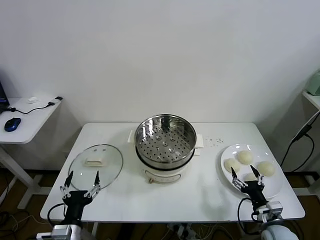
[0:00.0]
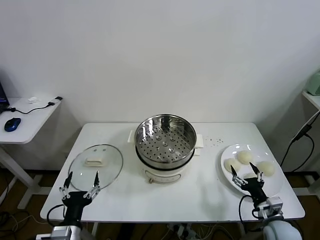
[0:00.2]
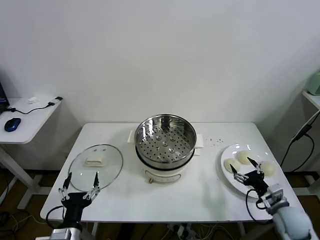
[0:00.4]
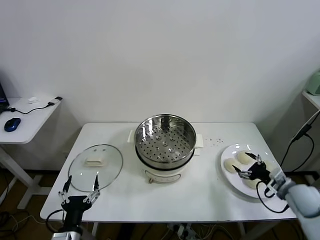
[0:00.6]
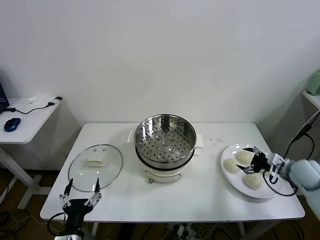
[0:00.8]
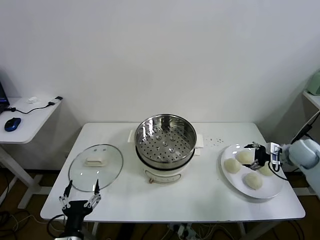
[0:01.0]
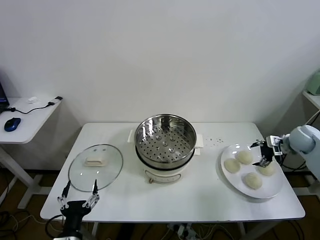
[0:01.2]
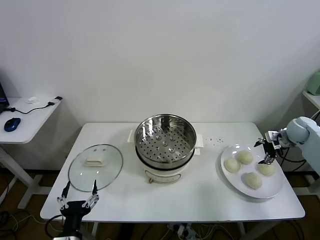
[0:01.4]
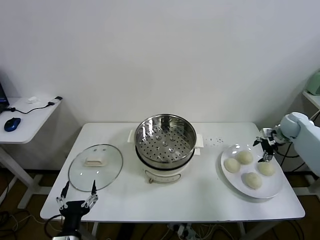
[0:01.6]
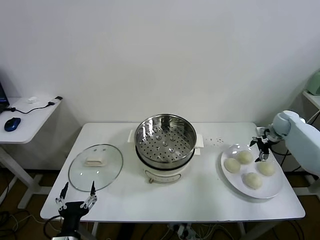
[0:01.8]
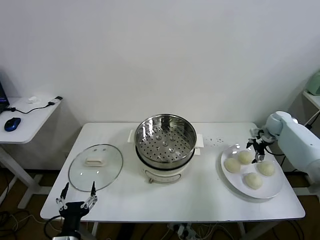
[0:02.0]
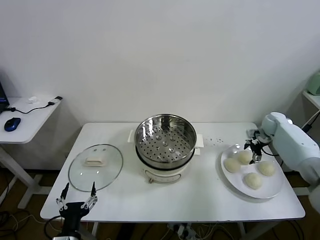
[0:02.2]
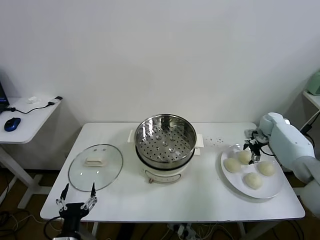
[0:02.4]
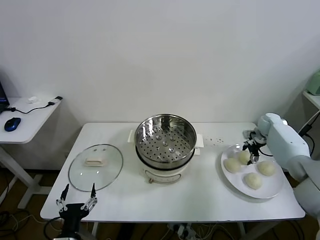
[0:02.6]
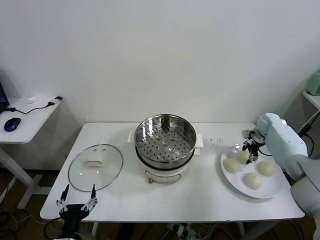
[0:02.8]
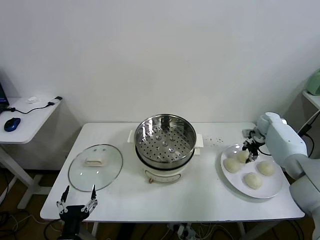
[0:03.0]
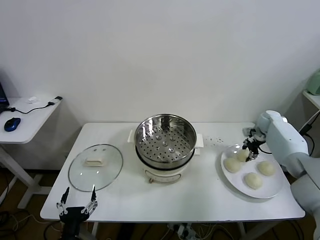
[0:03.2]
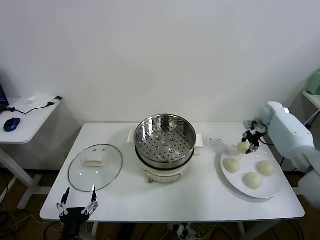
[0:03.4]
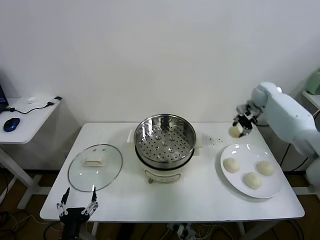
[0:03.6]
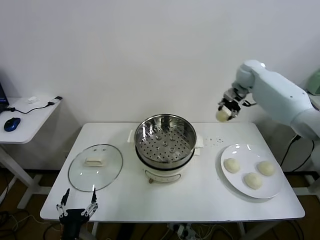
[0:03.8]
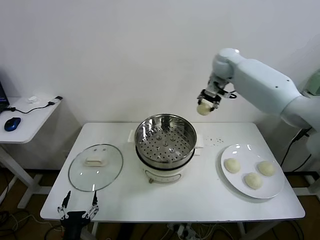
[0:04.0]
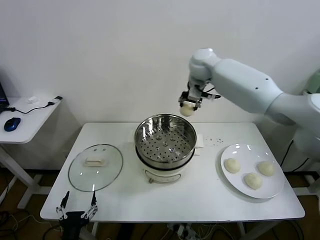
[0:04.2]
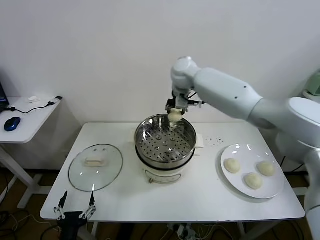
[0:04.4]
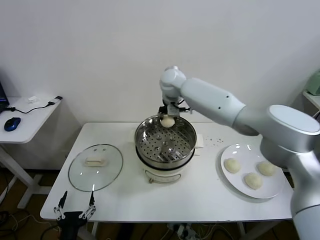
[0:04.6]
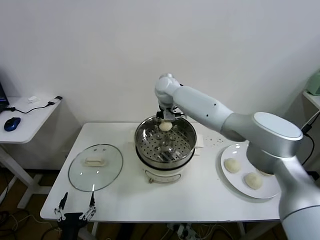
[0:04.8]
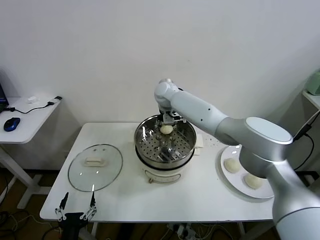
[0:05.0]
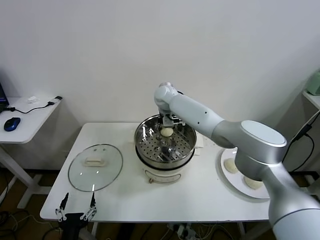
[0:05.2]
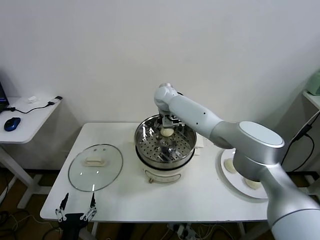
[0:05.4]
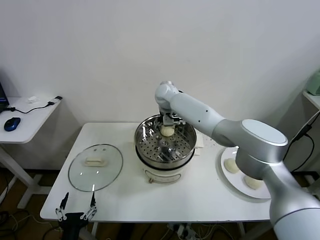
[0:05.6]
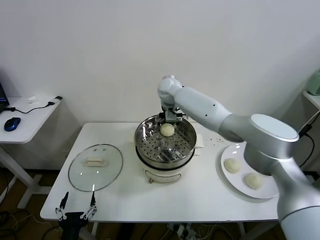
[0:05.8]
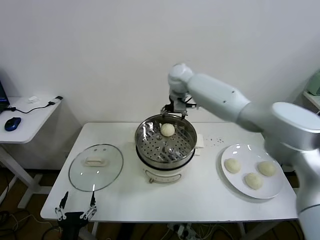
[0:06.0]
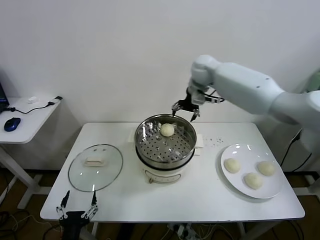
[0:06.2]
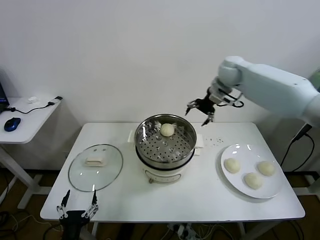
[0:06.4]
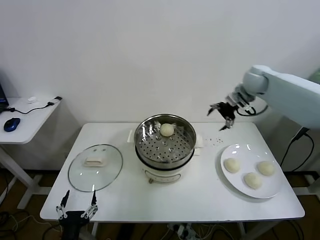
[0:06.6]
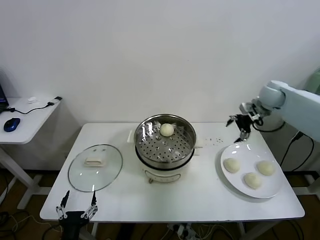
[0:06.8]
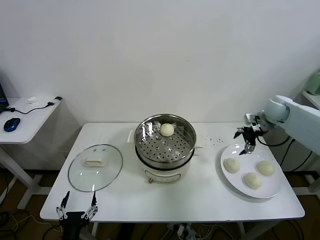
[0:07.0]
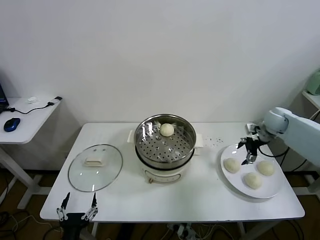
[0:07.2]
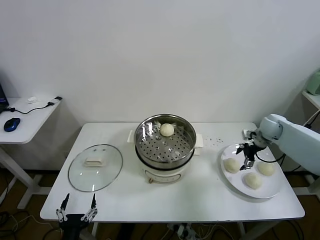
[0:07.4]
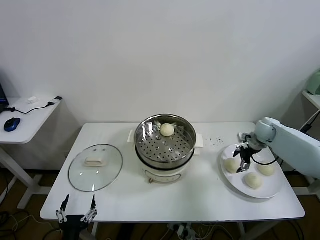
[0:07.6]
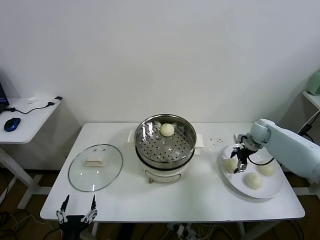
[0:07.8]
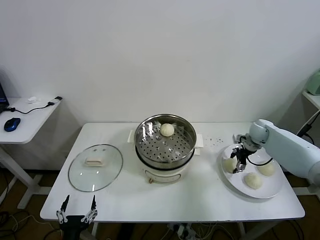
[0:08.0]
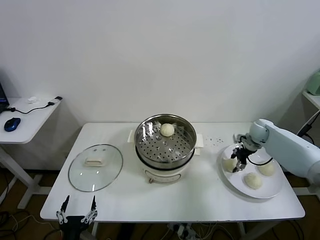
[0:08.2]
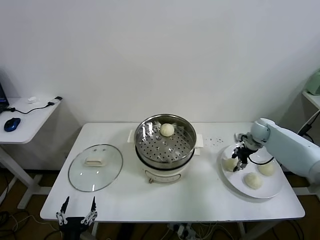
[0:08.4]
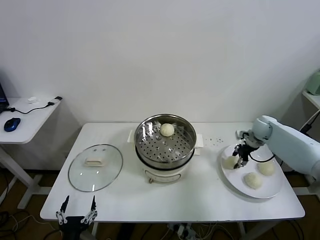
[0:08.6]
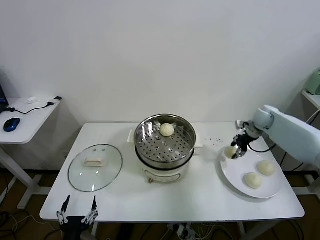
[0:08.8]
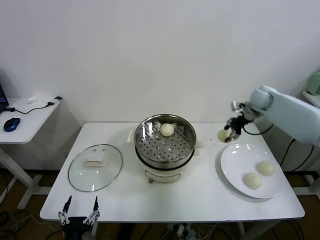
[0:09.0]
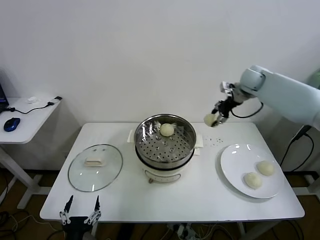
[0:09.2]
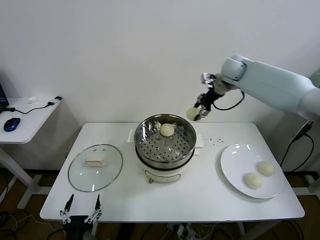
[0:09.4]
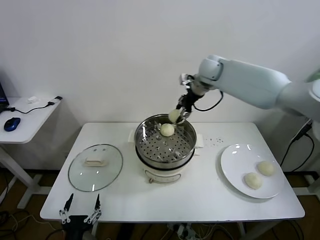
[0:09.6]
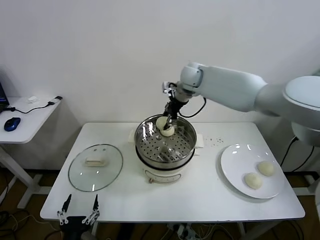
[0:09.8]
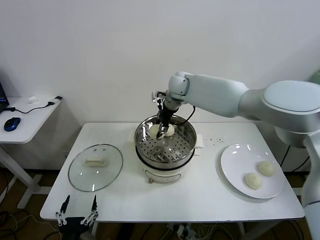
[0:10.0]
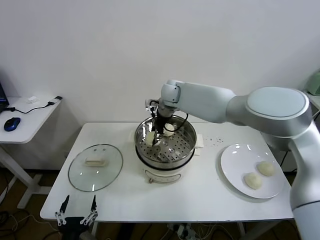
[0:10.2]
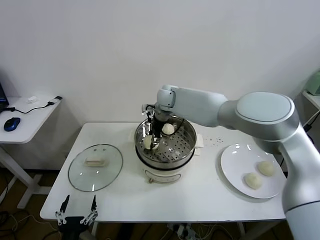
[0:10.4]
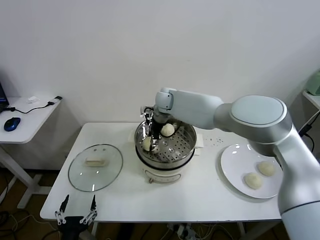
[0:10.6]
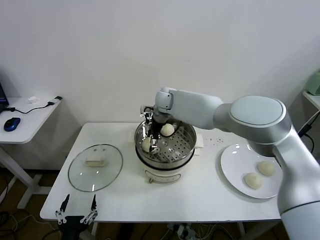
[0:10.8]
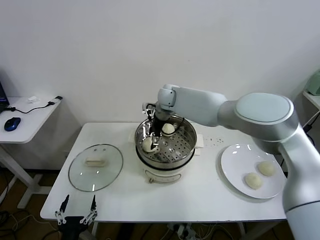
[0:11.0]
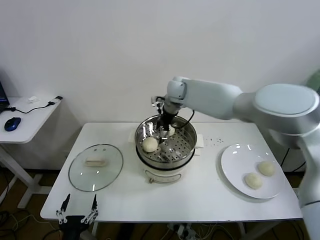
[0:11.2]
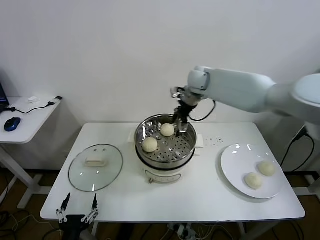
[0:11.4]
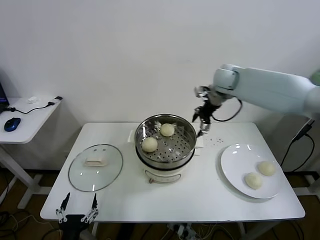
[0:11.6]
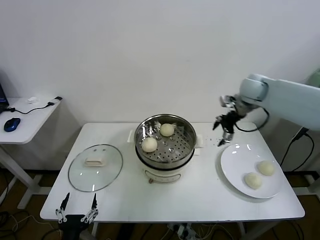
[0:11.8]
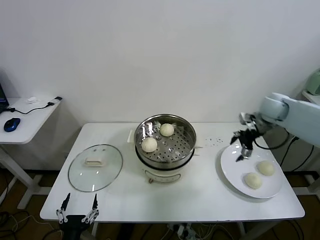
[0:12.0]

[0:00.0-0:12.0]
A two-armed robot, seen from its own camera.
Task of the whole recording: take steamed baozi put them in steamer.
Step, 0.0 to 2.6 s: Grasp the baozi in the plate with right gripper.
Step, 2.8 to 5.6 s: Place the baozi on the steamer with right gripper.
Step, 5.8 to 8.2 s: Grasp the baozi in the plate with right gripper.
Step, 8.4 to 10.8 s: Place the baozi on the steamer with right gripper.
1.6 to 3.0 s: The right gripper ends up about 10 cm from where it was, and closes its fingers.
3.0 to 4.4 s: The right gripper heads to the left and upward, covering about 50 cm.
4.4 to 6.0 s: The right gripper moves some 10 cm downward and comes back, and opens.
6.0 to 7.6 s: The right gripper heads to the right and downward, covering roughly 40 cm.
7.6 to 9.0 s: The right gripper moves upward, roughly 15 cm, and closes up.
9.0 to 10.4 s: The right gripper goes approximately 35 cm to the left.
10.4 to 12.0 s: The right gripper goes some 40 cm to the right, and opens its fingers.

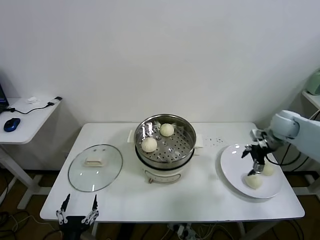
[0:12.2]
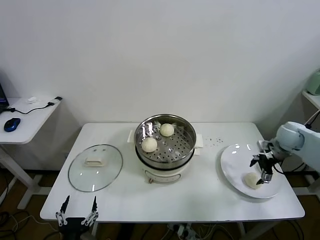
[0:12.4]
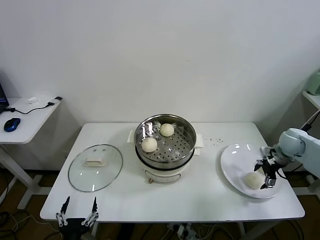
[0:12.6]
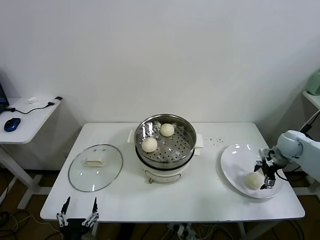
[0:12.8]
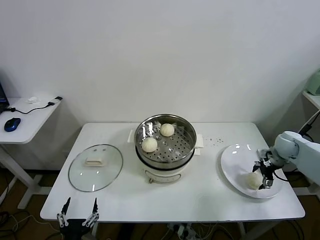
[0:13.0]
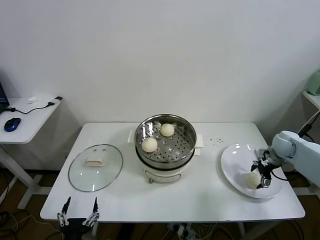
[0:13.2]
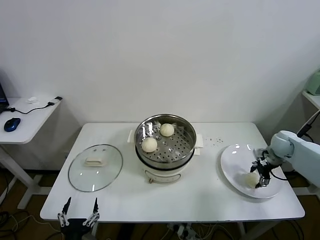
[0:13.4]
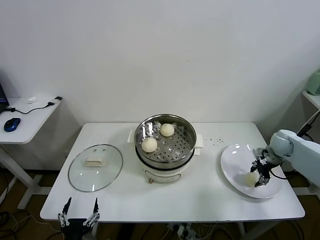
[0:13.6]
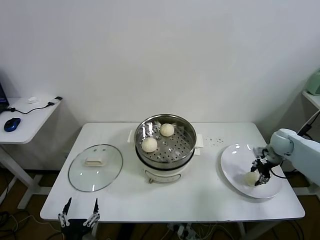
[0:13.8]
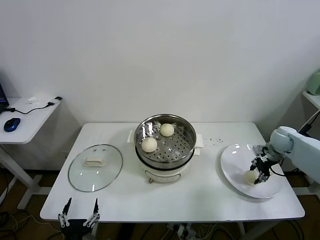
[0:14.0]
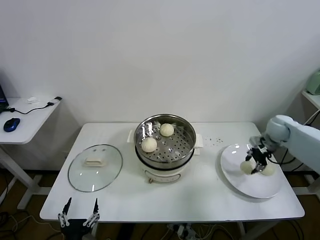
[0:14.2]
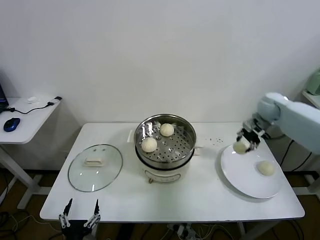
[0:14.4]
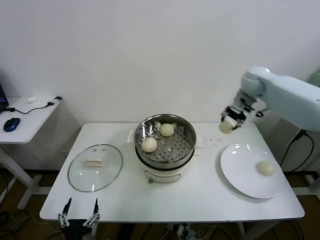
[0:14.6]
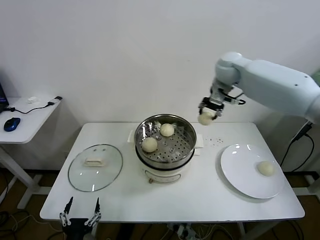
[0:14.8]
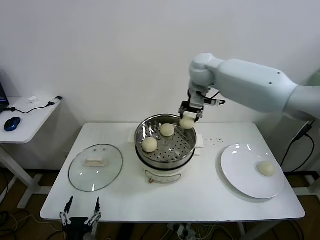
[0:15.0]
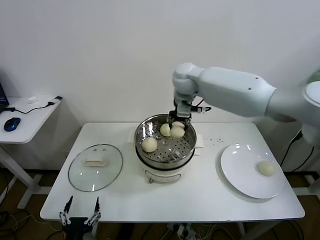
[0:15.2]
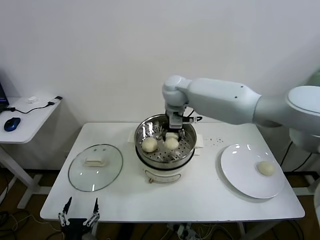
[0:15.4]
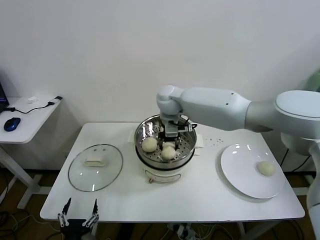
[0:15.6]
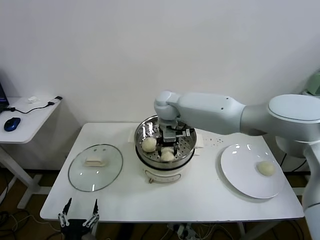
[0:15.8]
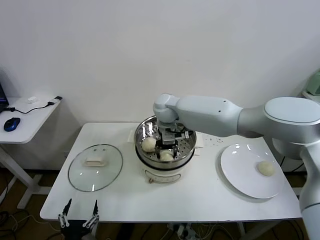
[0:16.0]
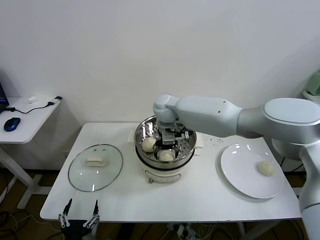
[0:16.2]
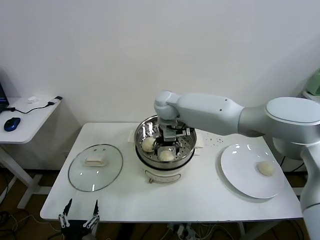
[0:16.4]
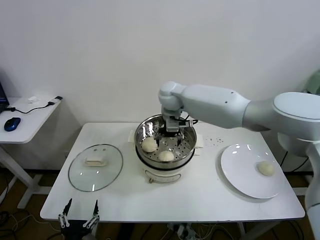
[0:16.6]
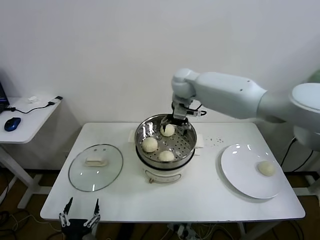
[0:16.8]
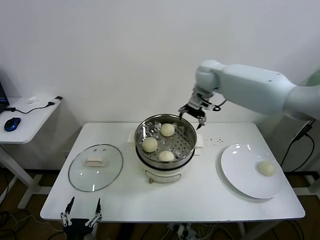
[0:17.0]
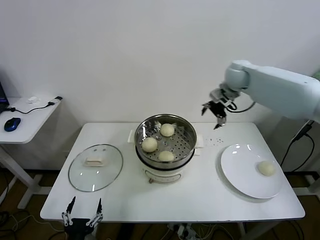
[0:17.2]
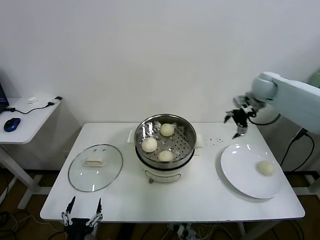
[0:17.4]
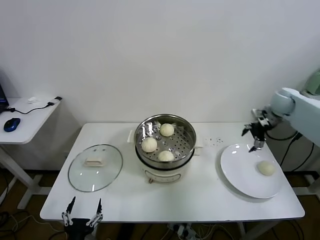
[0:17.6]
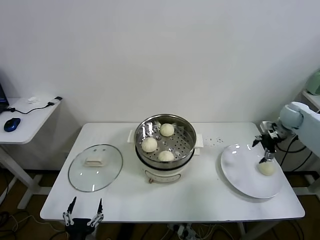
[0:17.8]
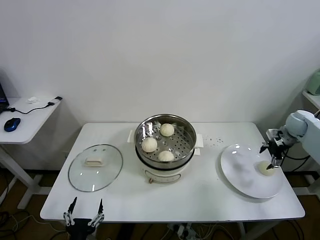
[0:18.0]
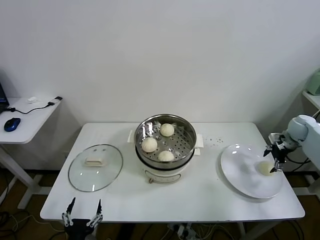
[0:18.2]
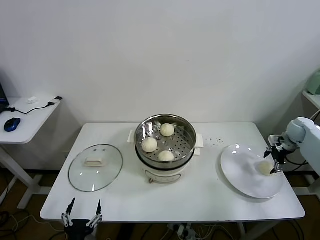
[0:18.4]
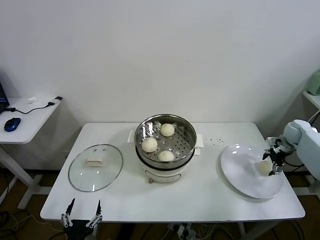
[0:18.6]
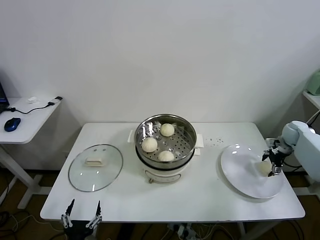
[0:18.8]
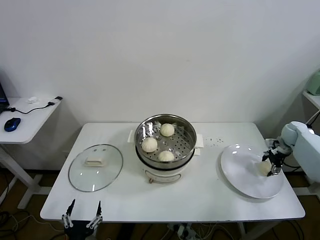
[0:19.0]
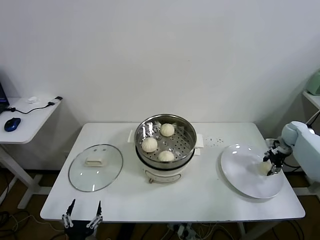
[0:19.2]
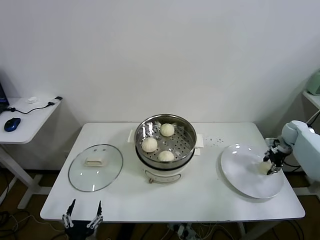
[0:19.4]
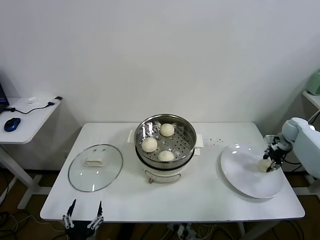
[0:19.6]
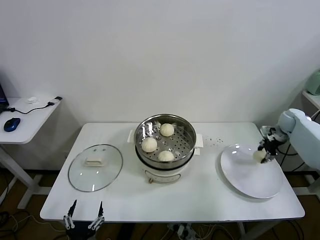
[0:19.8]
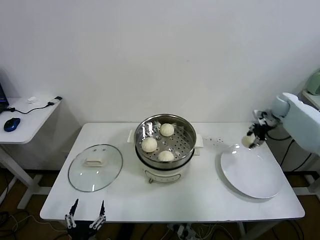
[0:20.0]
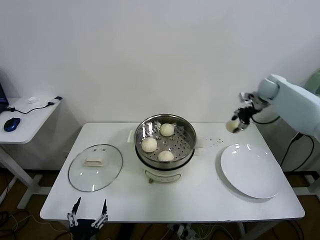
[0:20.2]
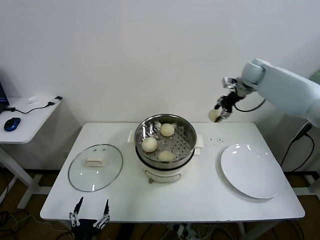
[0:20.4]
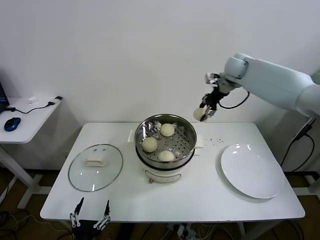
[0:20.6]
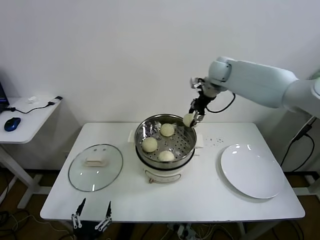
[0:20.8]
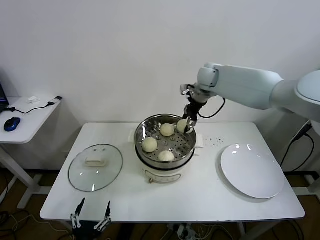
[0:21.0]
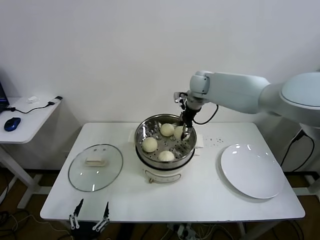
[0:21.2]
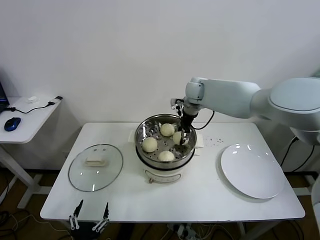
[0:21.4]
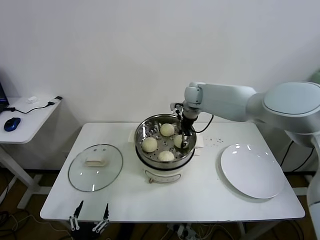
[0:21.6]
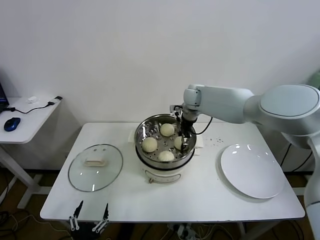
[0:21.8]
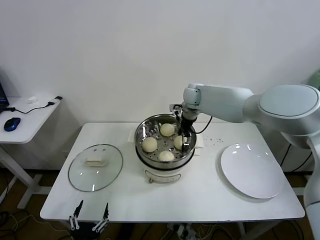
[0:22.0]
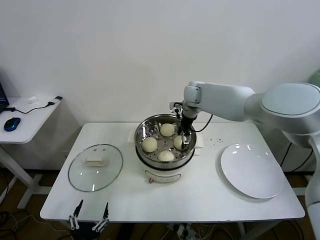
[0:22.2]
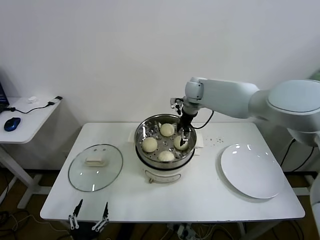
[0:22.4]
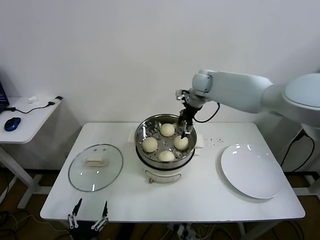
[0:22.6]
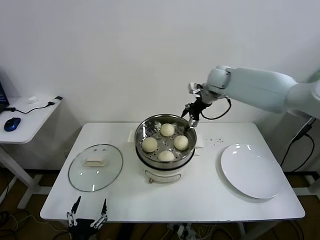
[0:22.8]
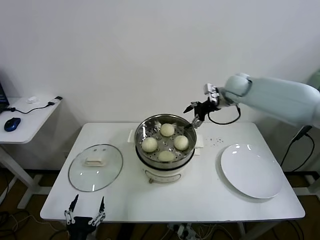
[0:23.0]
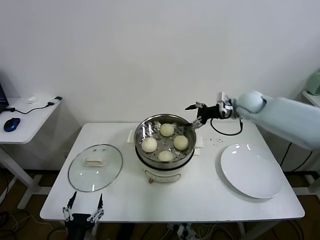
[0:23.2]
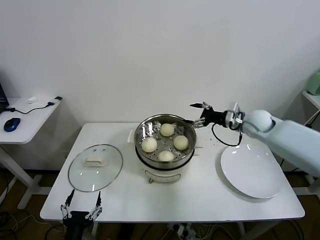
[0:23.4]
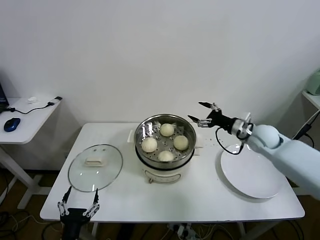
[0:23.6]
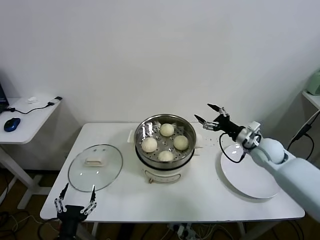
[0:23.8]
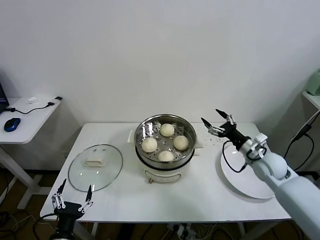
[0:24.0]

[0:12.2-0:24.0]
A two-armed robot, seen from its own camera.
Task of the whole recording: take steamed baozi put them in steamer.
Step, 12.2 to 13.8 s: Grasp the baozi in the plate with right gripper.
Step, 14.0 to 16.2 s: Place the baozi on the steamer with right gripper.
Step, 16.4 to 19.4 s: Grasp the baozi in the plate with right gripper.
Step, 19.6 to 22.2 s: Place the baozi on the steamer with right gripper.
12.2 to 13.6 s: The right gripper moves downward, some 10 cm, and closes up.
13.6 to 15.2 s: The right gripper goes roughly 50 cm to the left and upward.
15.2 to 16.6 s: The right gripper shifts some 5 cm downward, and opens its fingers.
16.6 to 18.2 s: The right gripper heads to the right, covering roughly 50 cm.
18.2 to 19.6 s: The right gripper closes up.
19.6 to 21.0 s: The right gripper travels to the left and upward by some 40 cm.
21.0 to 22.6 s: The right gripper reaches roughly 10 cm downward, then returns, and opens up.
22.6 to 24.0 s: The right gripper goes about 35 cm backward, to the right and downward. Meanwhile the left gripper changes place by about 5 cm.
